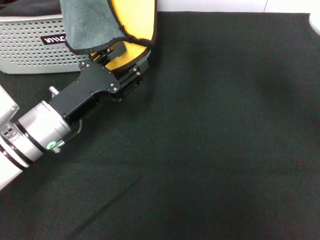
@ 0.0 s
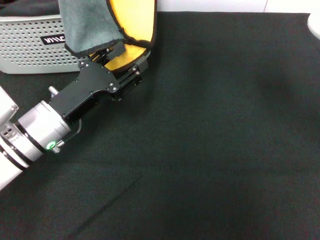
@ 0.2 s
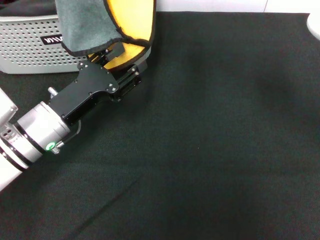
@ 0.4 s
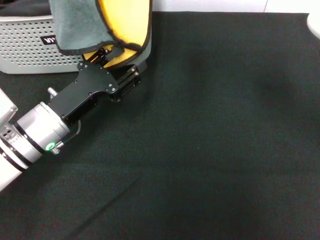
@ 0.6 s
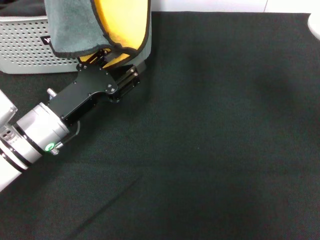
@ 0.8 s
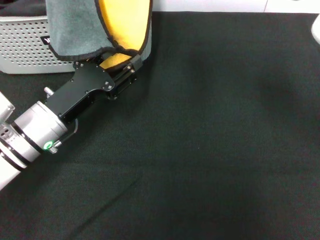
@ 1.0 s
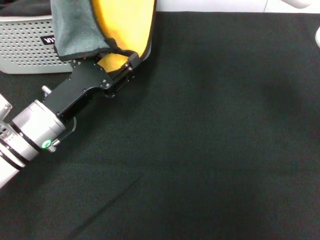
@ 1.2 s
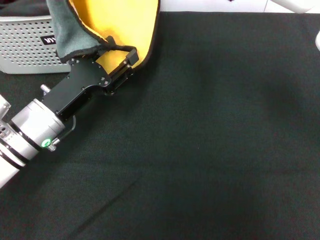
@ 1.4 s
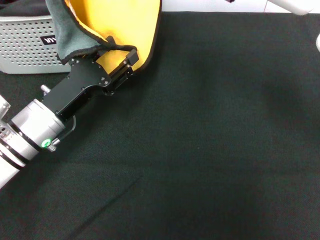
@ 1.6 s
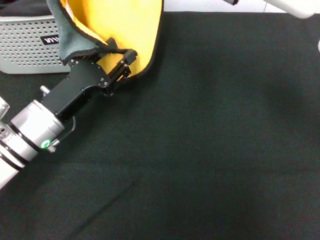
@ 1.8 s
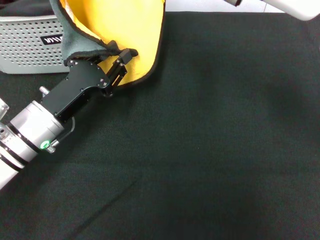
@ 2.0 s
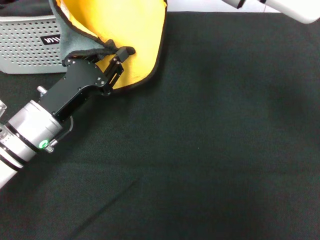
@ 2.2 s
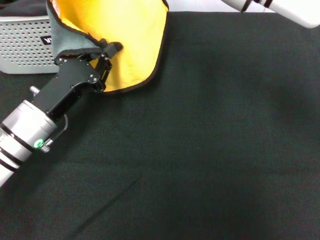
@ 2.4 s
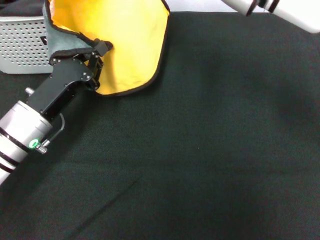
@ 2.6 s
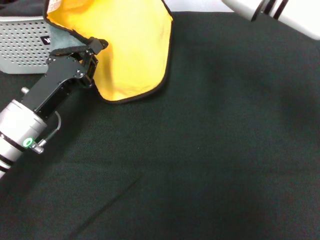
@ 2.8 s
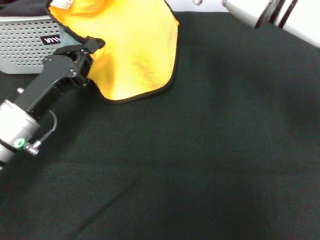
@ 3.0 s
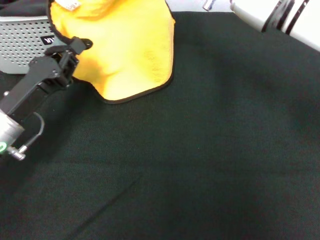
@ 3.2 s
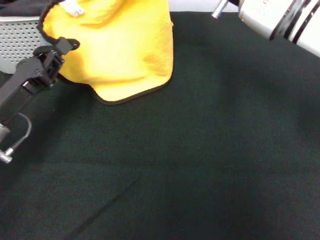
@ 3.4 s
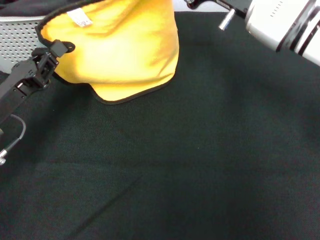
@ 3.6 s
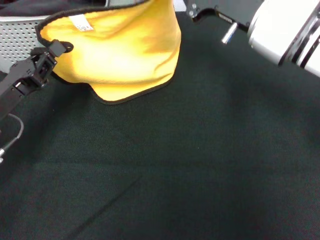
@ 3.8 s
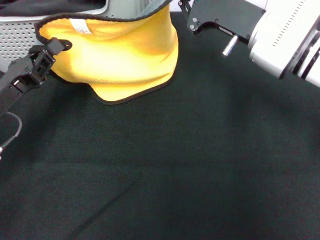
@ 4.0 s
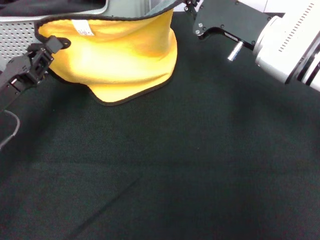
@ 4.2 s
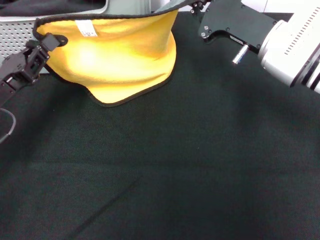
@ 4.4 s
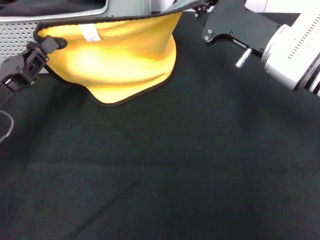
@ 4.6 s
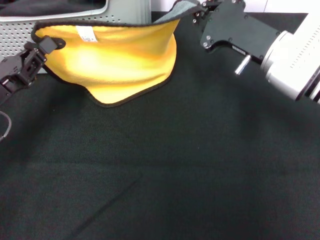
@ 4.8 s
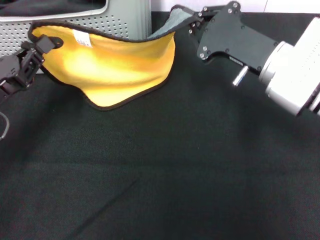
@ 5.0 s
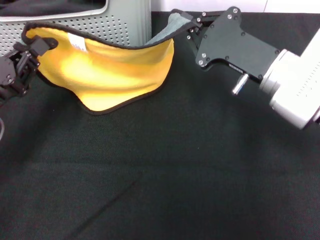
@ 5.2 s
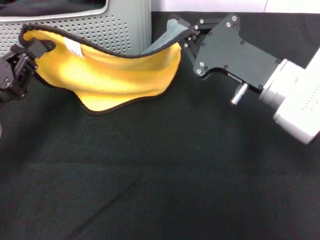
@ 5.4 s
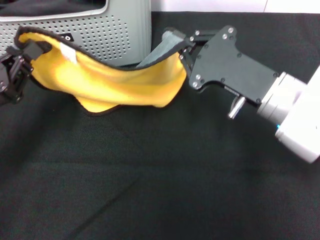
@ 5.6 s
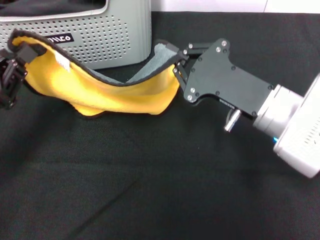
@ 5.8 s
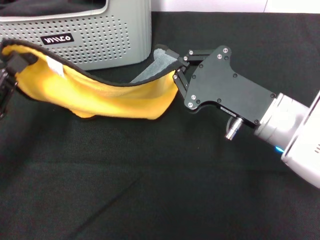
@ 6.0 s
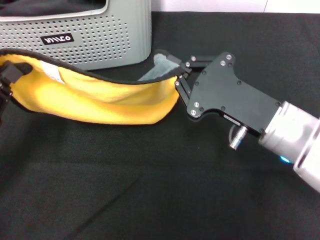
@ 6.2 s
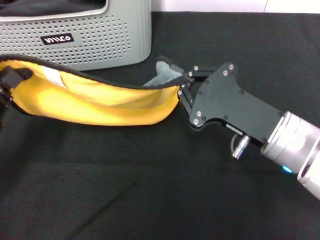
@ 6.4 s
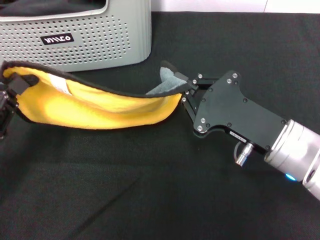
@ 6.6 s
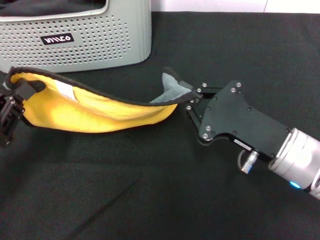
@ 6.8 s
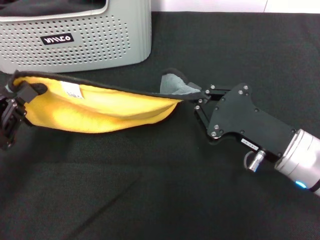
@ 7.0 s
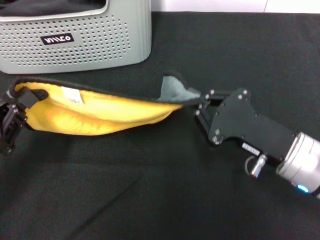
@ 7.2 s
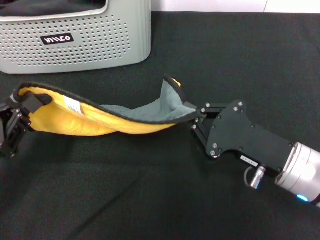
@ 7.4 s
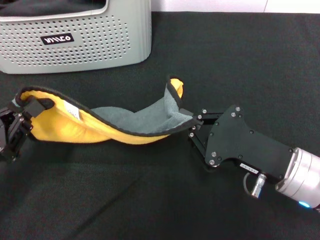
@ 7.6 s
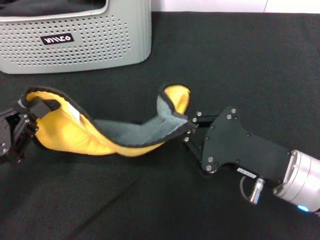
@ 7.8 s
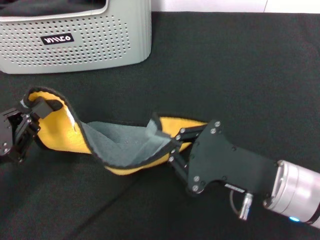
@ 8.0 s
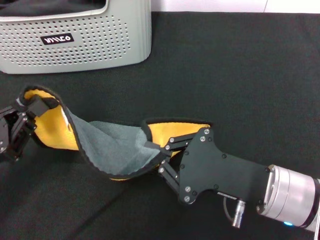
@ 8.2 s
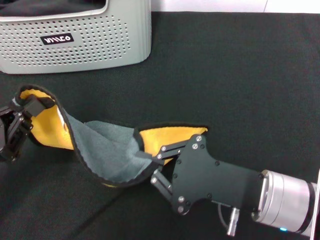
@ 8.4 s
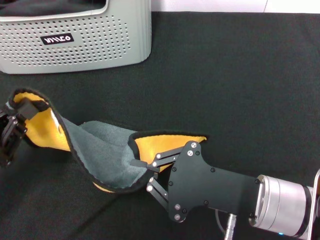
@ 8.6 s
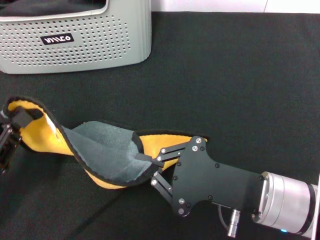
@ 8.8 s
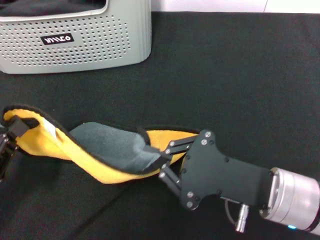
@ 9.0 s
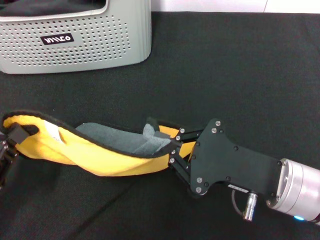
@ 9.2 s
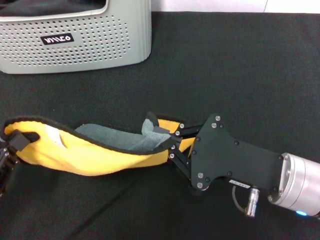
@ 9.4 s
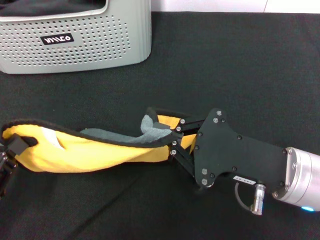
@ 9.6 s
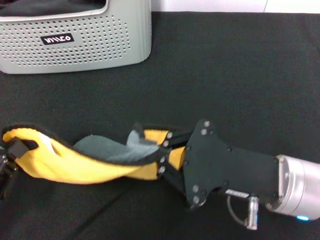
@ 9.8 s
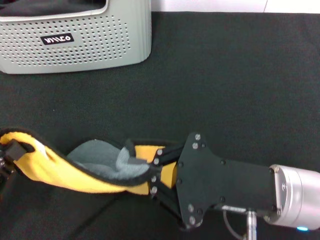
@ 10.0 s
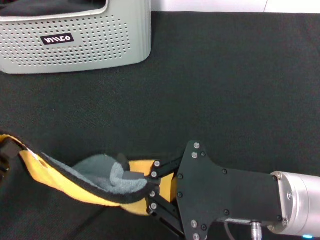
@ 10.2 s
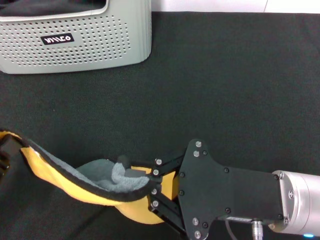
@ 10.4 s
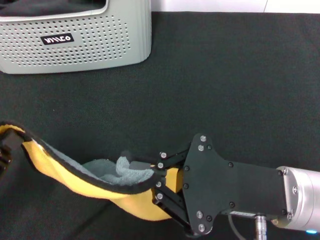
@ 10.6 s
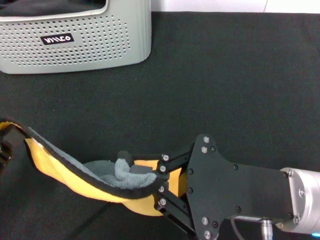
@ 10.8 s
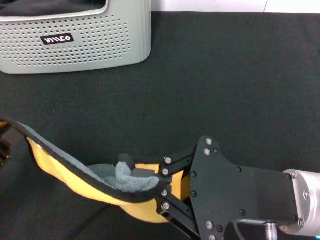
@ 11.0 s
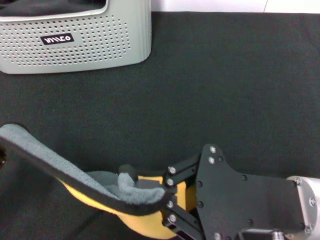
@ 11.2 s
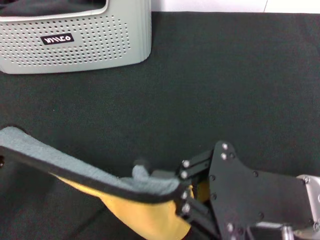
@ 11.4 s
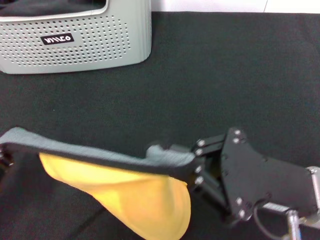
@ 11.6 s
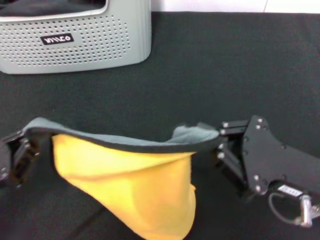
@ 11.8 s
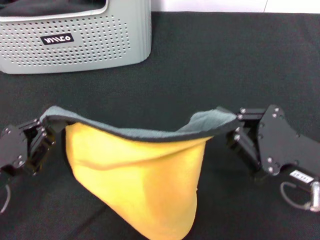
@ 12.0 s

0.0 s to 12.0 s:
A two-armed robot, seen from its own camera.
Task of the whole recording: pick up the towel from the storage box and lay it flat on the black tablecloth.
0.0 to 1.6 s: There are only small adjustments of the grippers.
1.6 to 3.0 s: The right gripper moves roughly 5 cm. The left gripper closes up.
3.0 to 4.4 s: The right gripper moves downward and to the right, approximately 10 cm. Meanwhile the left gripper shifts about 5 cm to the left.
4.4 to 6.0 s: The left gripper goes about 5 cm backward. Meanwhile the right gripper heads backward, covering approximately 10 cm.
6.0 to 7.6 s: The right gripper ends up about 5 cm from where it was.
10.4 to 12.0 s: The left gripper moves about 5 cm. Meanwhile the right gripper moves to the right, about 5 cm.

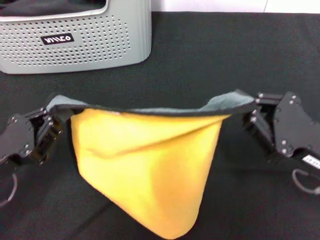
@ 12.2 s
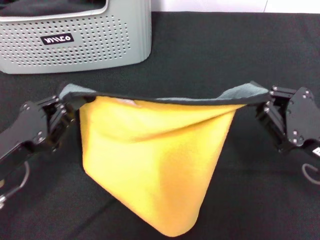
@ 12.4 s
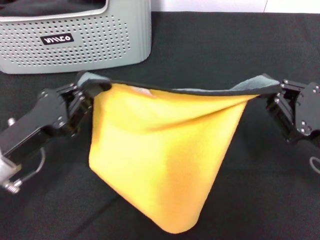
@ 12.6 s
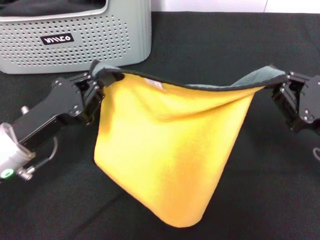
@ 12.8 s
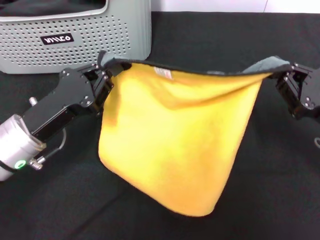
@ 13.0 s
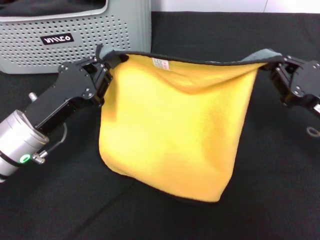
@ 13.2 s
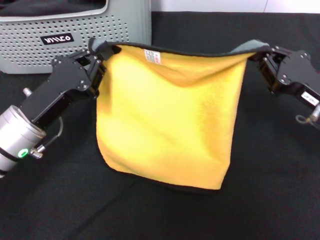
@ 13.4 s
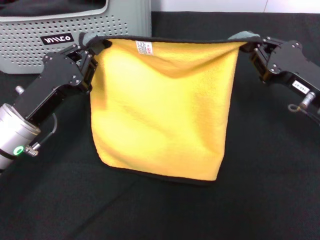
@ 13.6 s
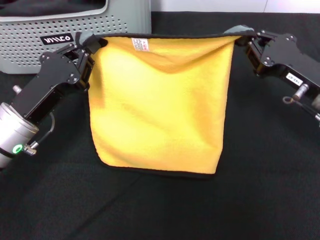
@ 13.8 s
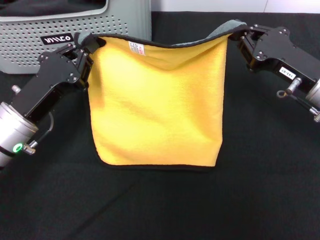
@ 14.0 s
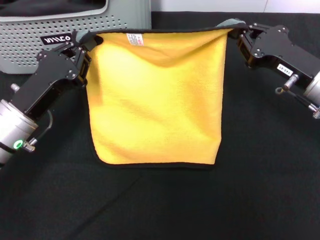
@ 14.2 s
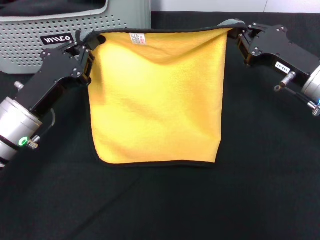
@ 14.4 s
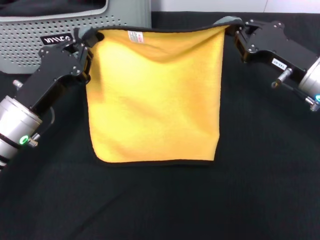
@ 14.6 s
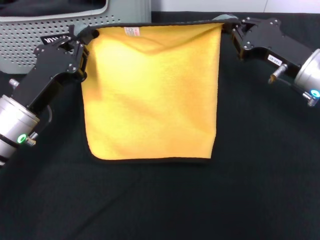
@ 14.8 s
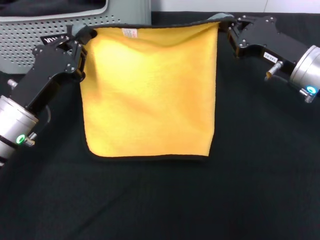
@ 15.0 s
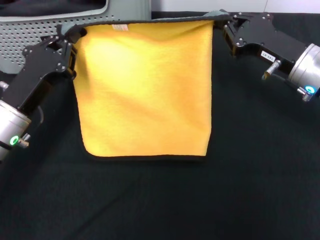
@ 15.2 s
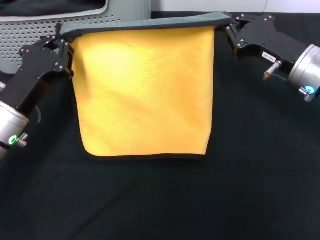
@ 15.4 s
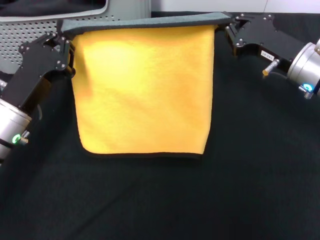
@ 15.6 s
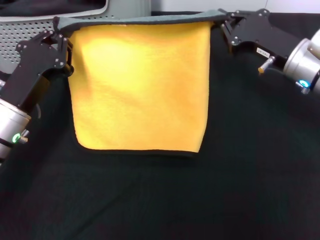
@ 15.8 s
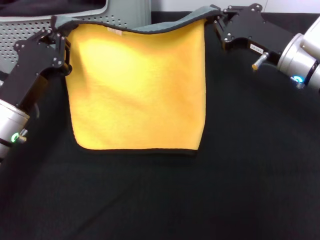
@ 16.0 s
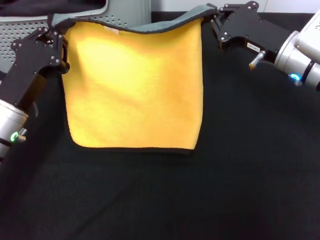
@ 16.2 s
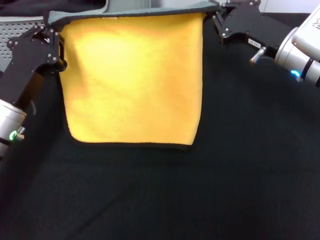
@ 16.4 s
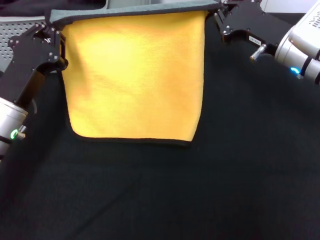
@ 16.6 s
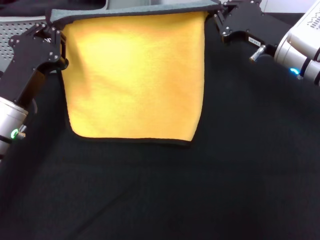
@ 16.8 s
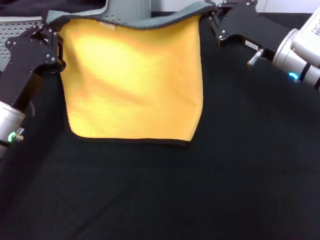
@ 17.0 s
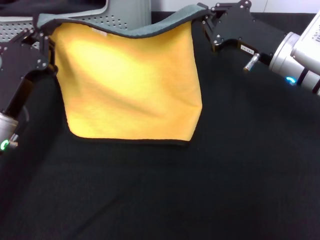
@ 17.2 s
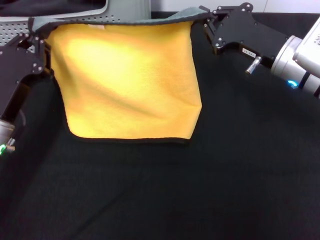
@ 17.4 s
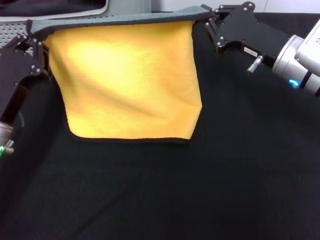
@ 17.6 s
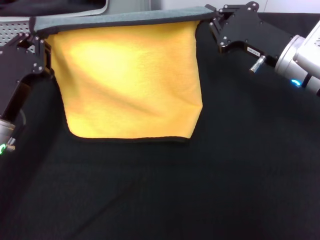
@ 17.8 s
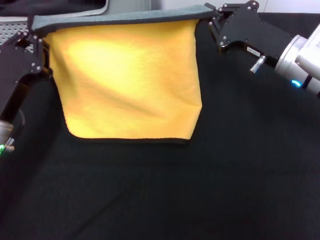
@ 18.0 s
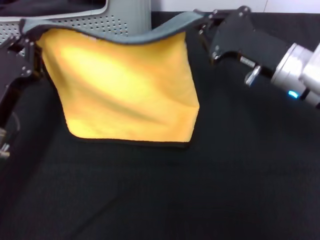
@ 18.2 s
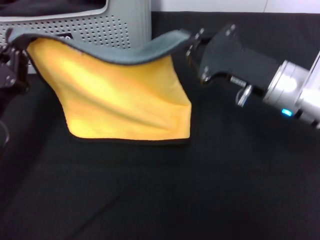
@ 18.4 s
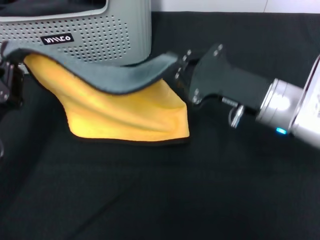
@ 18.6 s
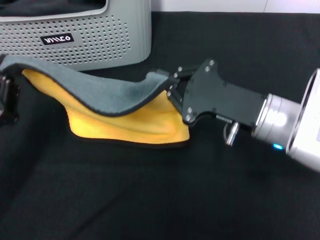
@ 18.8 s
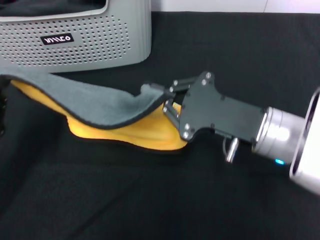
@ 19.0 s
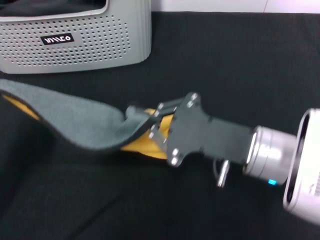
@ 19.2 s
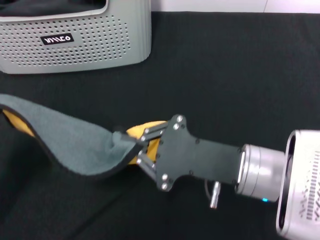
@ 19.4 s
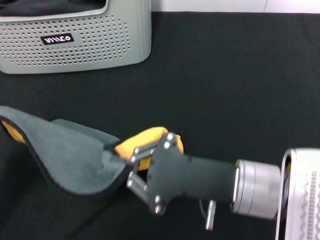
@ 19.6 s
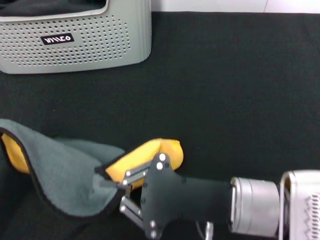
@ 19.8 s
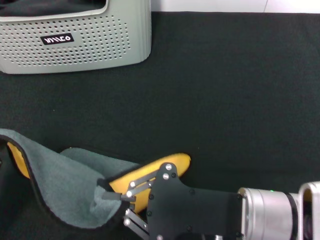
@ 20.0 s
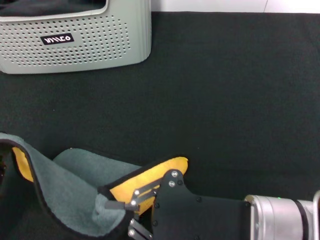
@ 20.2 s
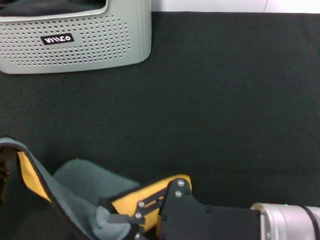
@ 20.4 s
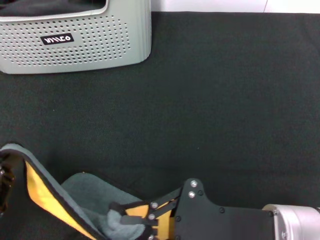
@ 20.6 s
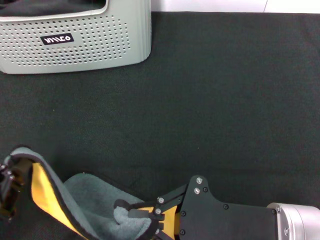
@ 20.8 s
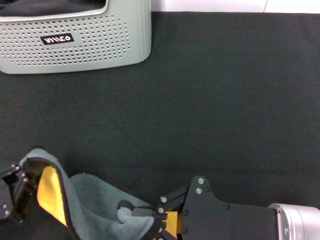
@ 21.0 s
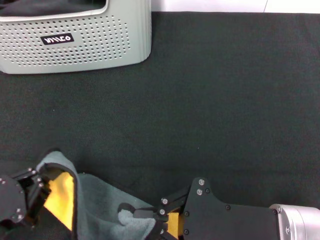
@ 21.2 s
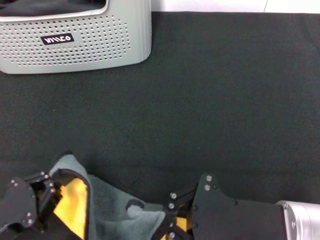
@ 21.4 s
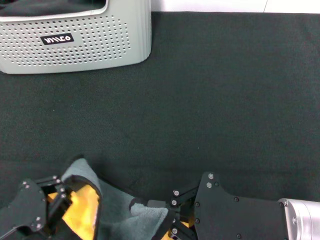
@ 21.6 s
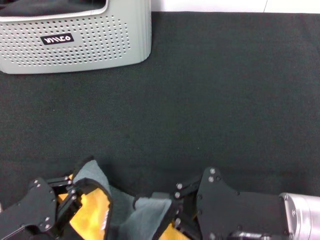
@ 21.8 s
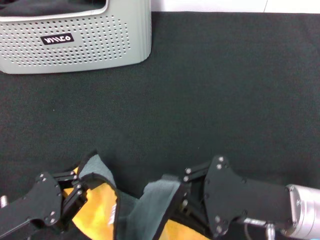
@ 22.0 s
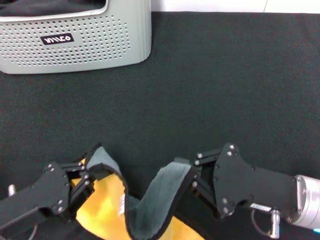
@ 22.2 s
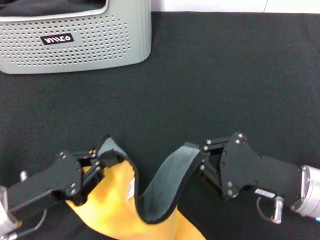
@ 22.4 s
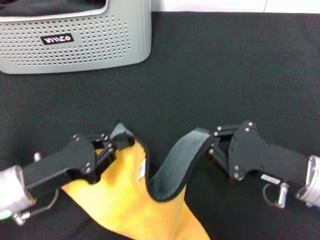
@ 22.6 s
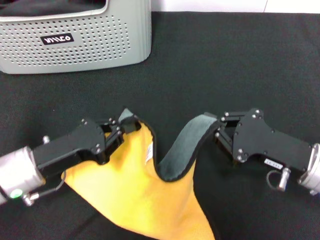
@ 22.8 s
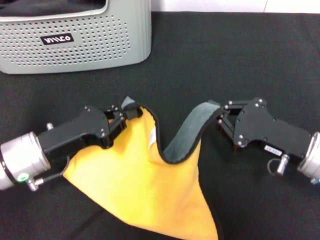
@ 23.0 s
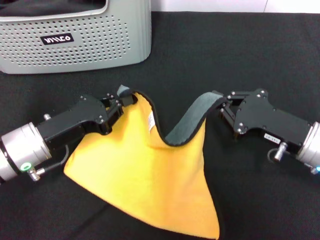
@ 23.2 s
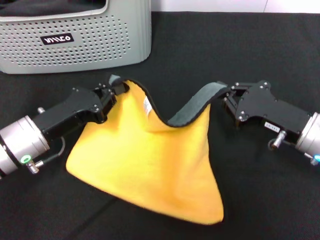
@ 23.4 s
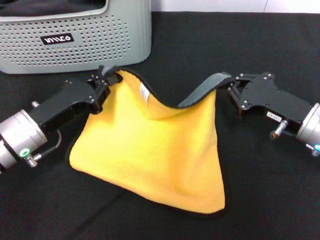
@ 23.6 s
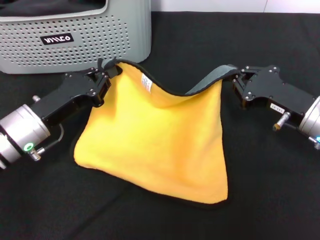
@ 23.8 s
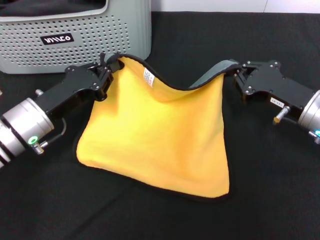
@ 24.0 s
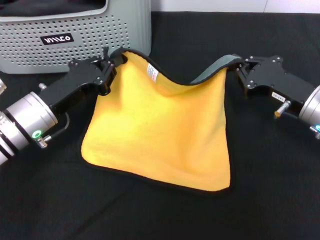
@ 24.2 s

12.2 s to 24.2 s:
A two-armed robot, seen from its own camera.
Task of the whole recording: pick up the towel from the storage box and lay it flat on the black tablecloth.
12.2 to 13.8 s: The grippers both shift forward by about 10 cm.
13.8 to 15.2 s: The right gripper ends up some 5 cm from where it was.
18.2 to 19.8 s: The left gripper shifts approximately 15 cm backward. Meanwhile the right gripper moves backward and to the left, approximately 15 cm.
21.2 to 22.6 s: The right gripper heads forward and to the right, covering about 10 cm. Meanwhile the left gripper is displaced forward by some 10 cm.
22.6 to 24.2 s: Both grippers travel together forward, some 10 cm.
